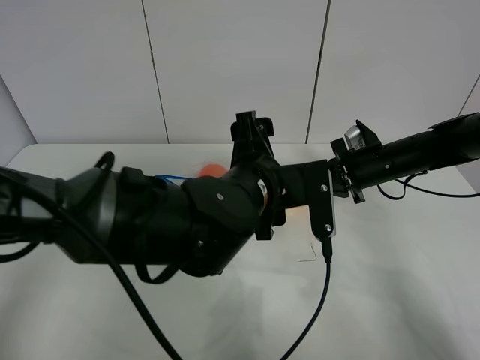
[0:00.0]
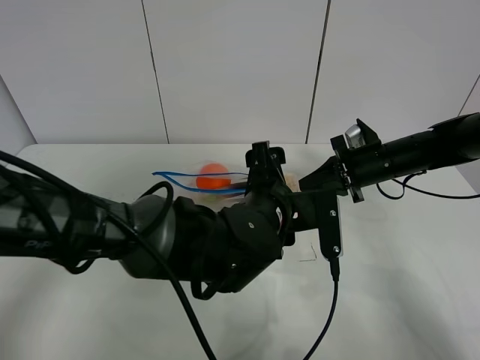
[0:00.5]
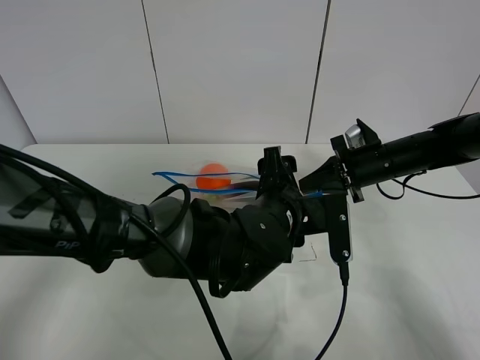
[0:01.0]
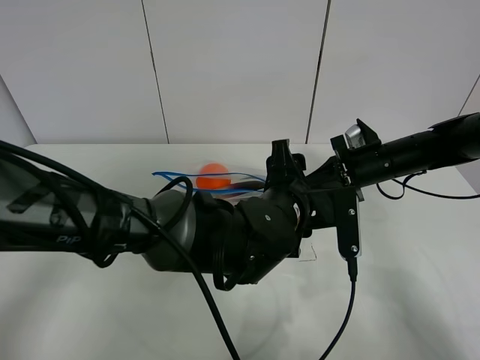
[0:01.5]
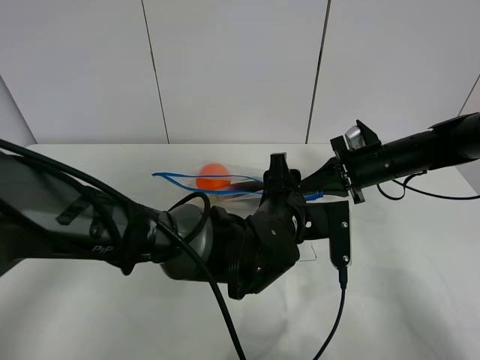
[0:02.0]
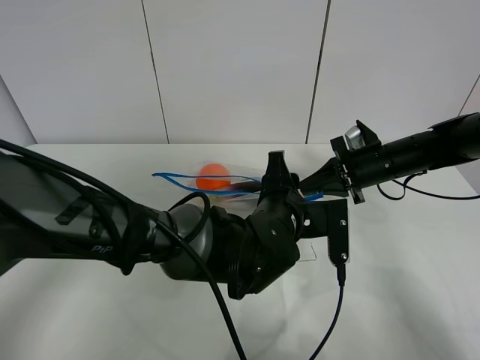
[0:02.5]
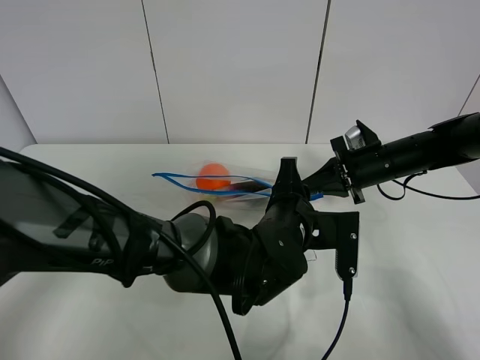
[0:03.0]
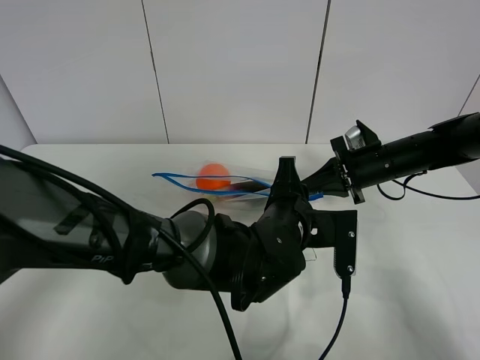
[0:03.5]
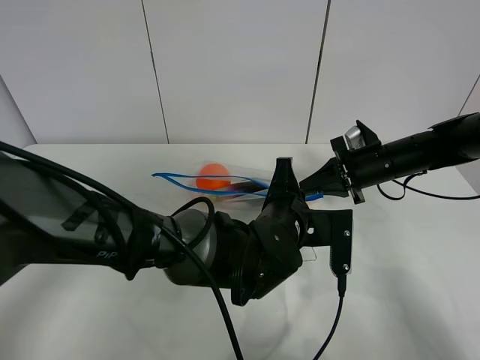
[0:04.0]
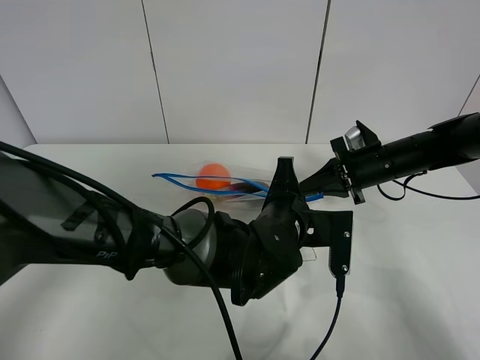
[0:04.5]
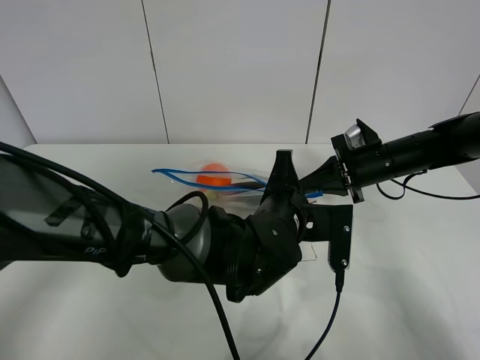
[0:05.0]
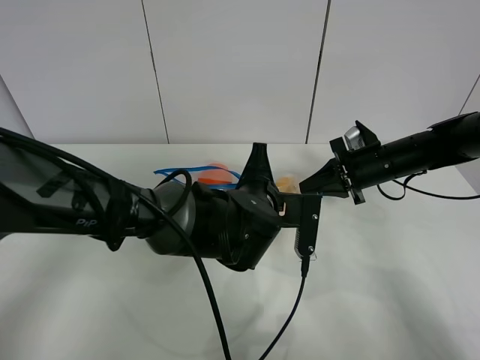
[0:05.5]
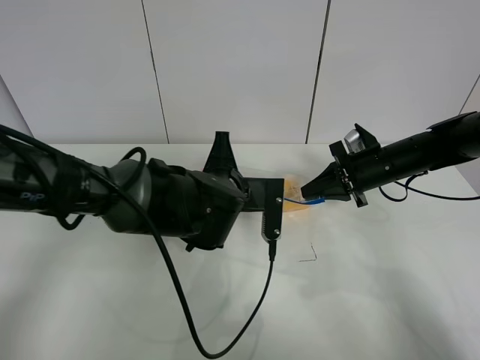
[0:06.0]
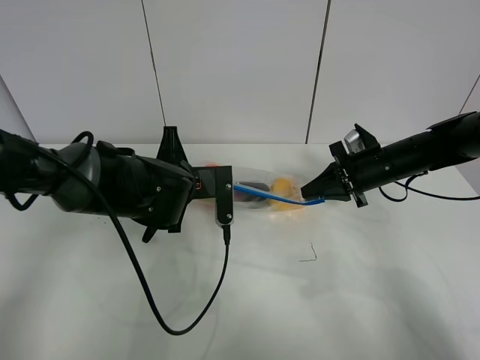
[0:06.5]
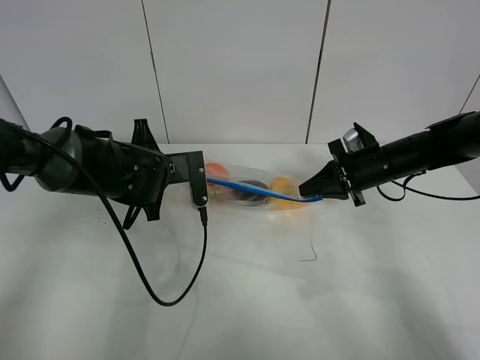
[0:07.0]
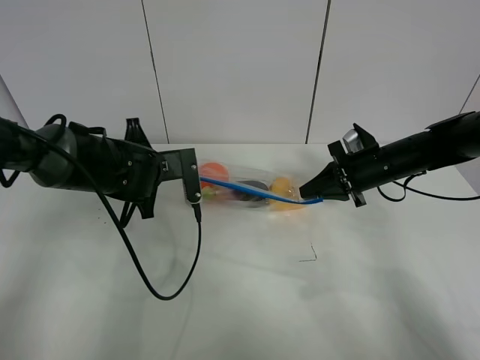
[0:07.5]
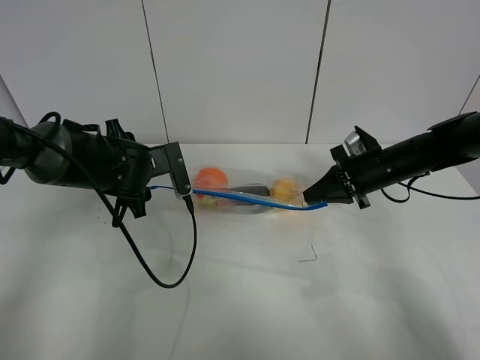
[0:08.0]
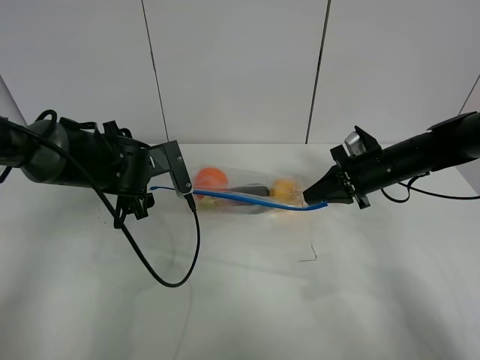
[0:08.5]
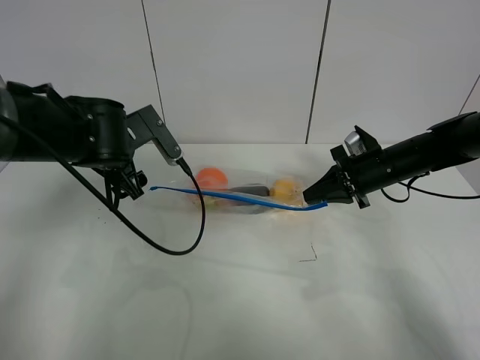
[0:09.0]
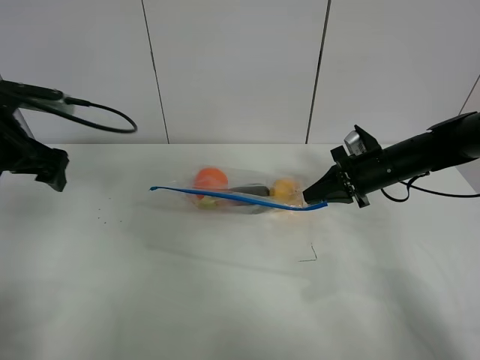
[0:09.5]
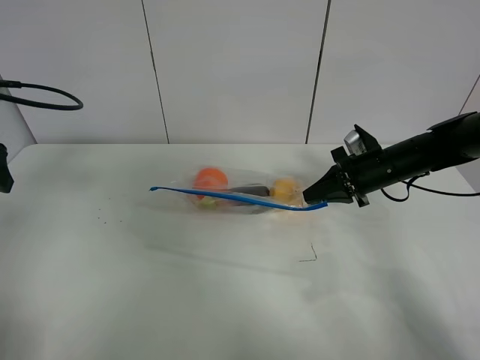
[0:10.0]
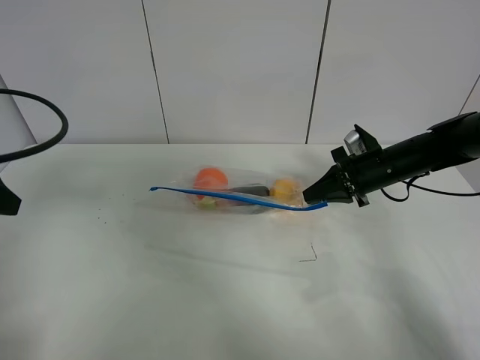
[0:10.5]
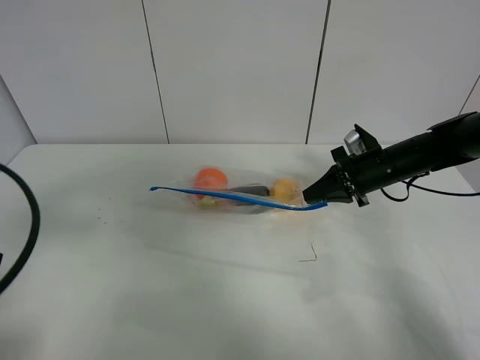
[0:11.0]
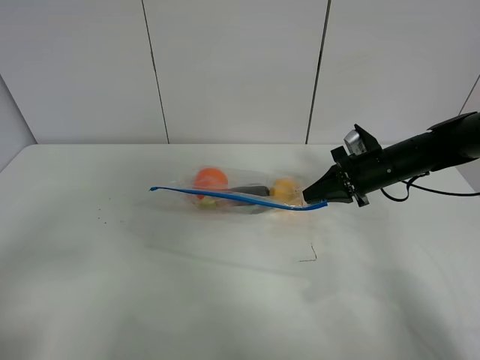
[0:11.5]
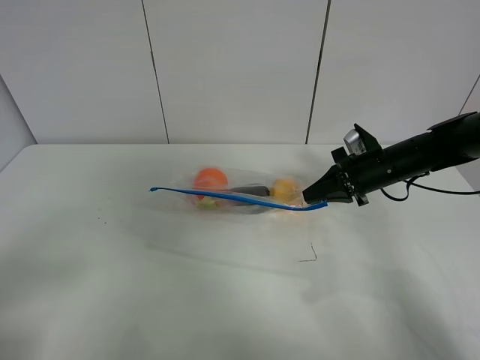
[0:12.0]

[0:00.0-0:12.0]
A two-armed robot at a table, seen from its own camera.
Step, 0:00.0 to 0:07.5: Pull the fruit bag with left gripper.
0:00.0 to 0:02.0: The left gripper goes some 5 cm downward.
0:02.0 to 0:04.0: The left gripper closes up.
0:04.0 to 0:06.0: The left gripper heads to the left, covering about 10 cm.
0:06.0 to 0:08.0: The left gripper shifts some 15 cm to the left and forward, and opens up.
0:08.0 to 0:10.0: The left gripper is displaced to the left, upward and backward by approximately 25 cm.
0:10.0 to 0:12.0: The left gripper is displaced backward by some 25 cm.

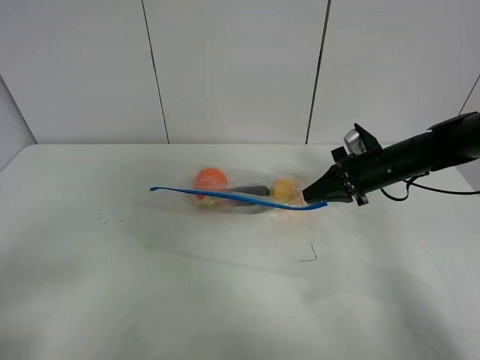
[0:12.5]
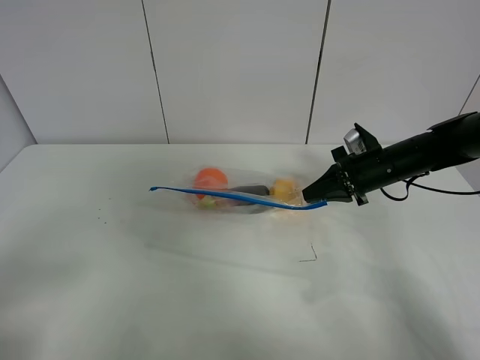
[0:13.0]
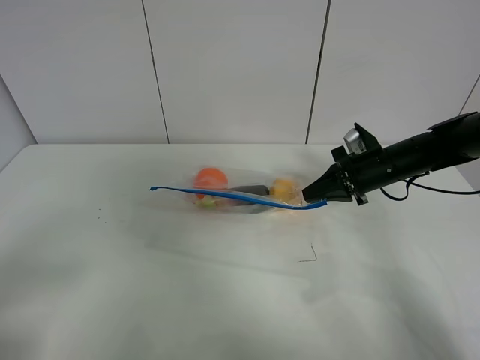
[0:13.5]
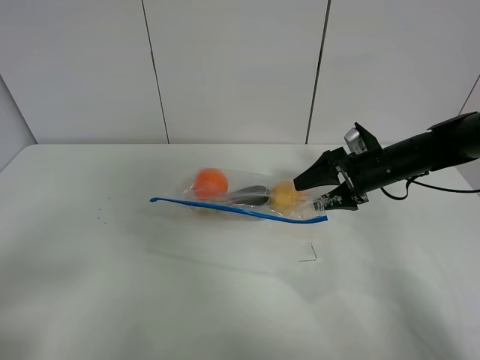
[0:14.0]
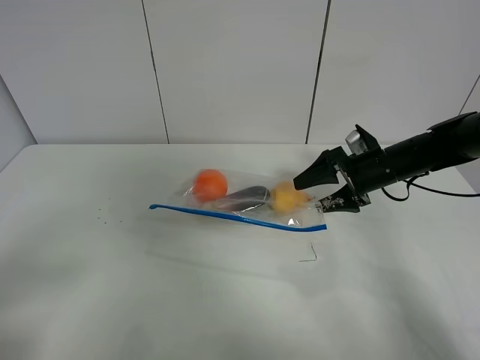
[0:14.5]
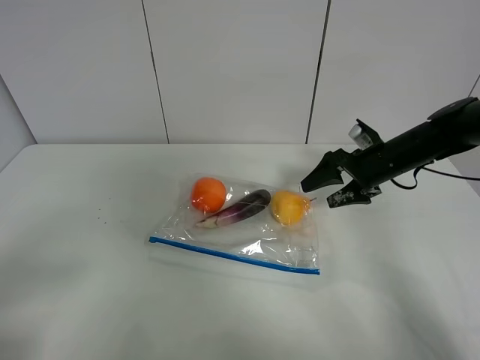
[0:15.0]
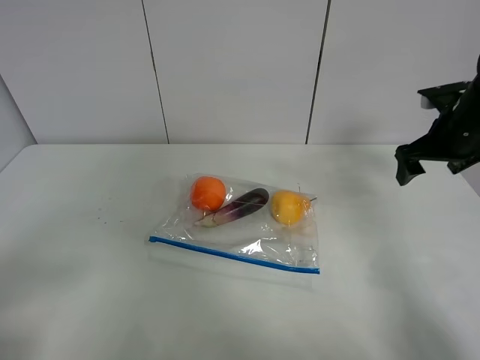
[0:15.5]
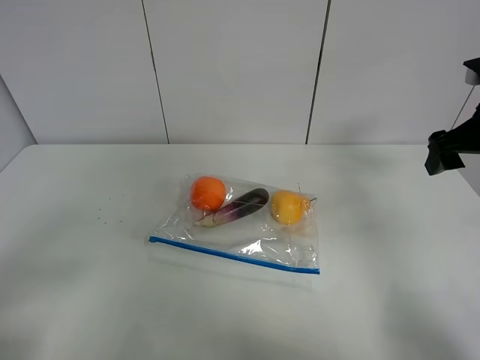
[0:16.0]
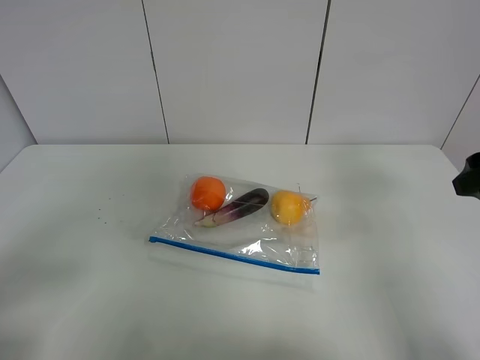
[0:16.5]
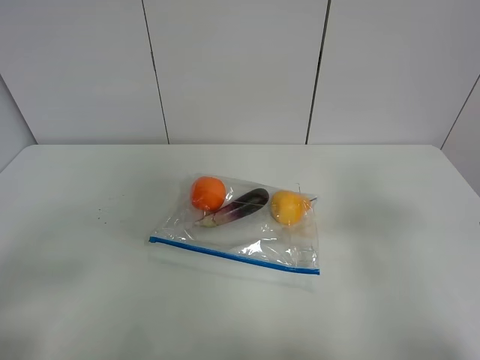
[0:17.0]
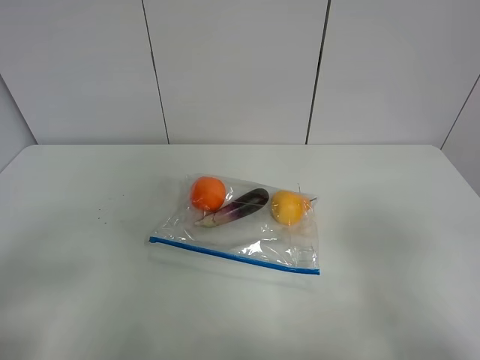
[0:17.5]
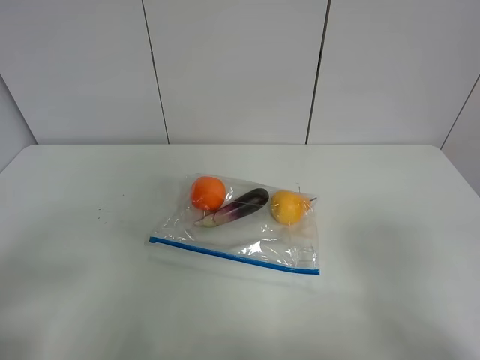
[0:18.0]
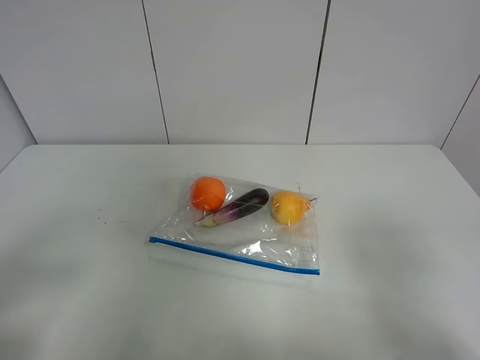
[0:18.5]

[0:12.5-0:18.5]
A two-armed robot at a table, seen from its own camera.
Step, 0:12.5 to 0:14.5: Place the fruit bag with right gripper.
0:12.5 to 0:14.5: The right gripper opens its fingers.
0:14.5 to 0:16.5: The right gripper travels backward, upward and to the right by about 25 cm.
0:16.5 to 0:18.5: The right gripper shifts some 20 cm backward.
